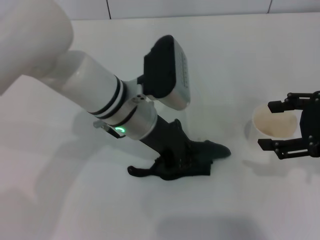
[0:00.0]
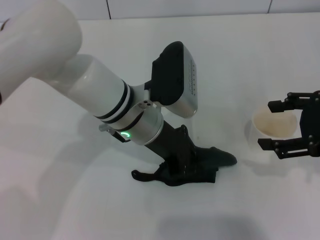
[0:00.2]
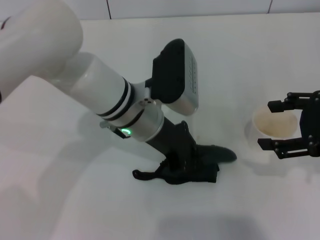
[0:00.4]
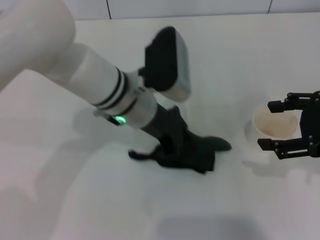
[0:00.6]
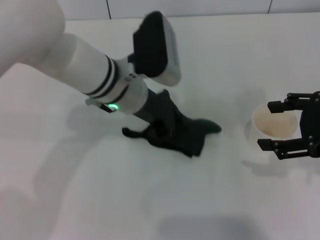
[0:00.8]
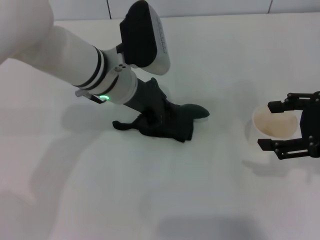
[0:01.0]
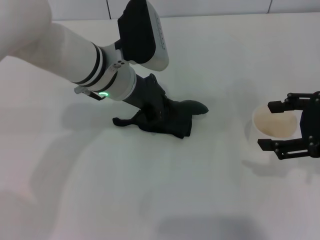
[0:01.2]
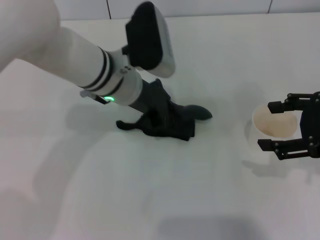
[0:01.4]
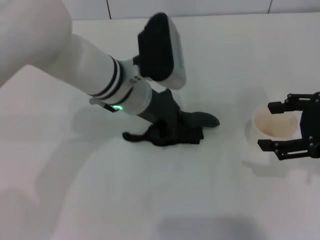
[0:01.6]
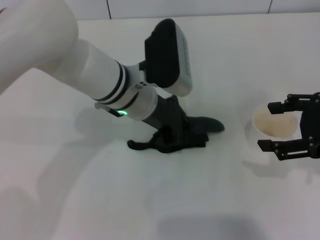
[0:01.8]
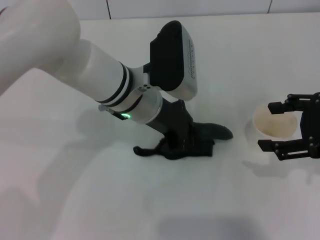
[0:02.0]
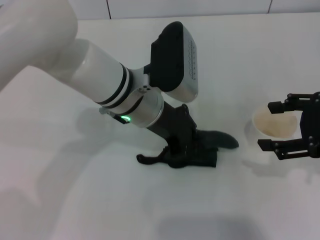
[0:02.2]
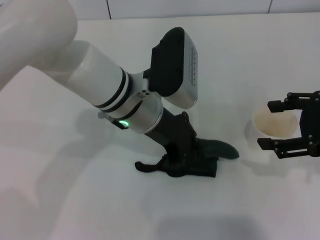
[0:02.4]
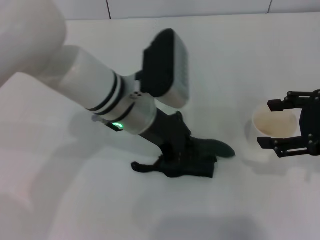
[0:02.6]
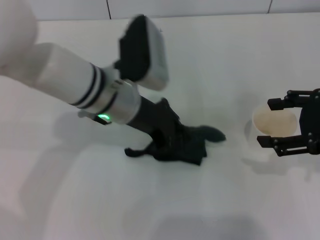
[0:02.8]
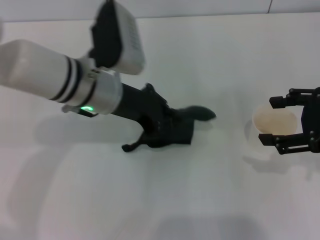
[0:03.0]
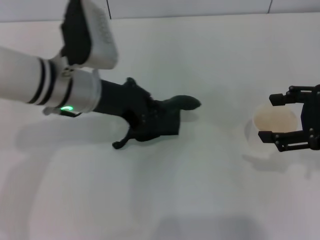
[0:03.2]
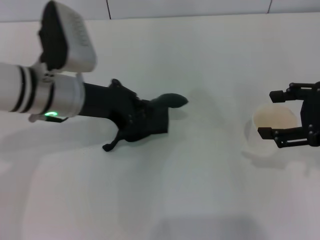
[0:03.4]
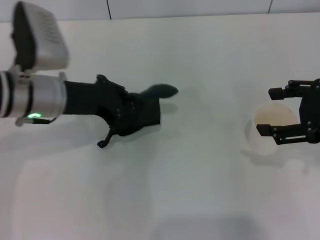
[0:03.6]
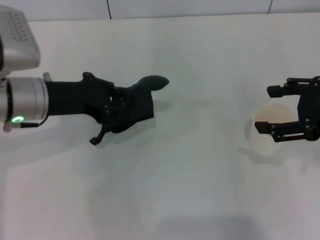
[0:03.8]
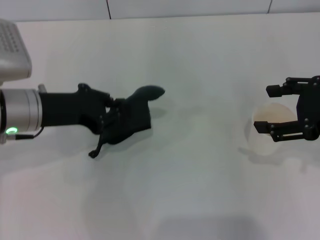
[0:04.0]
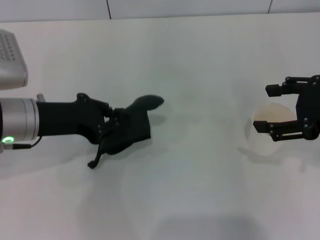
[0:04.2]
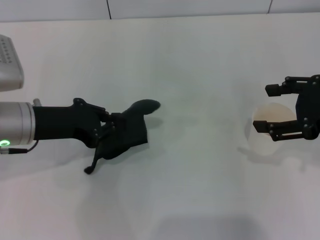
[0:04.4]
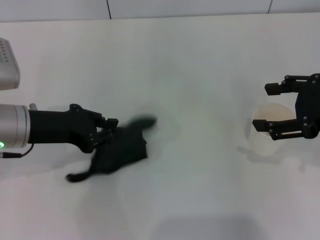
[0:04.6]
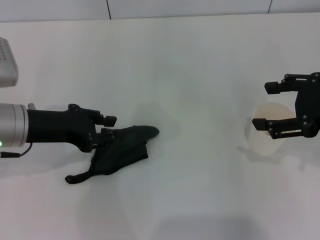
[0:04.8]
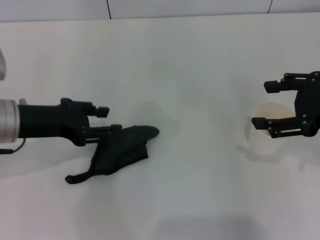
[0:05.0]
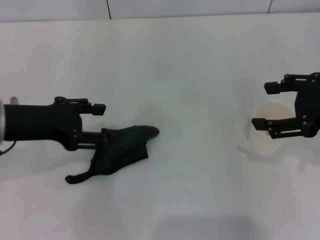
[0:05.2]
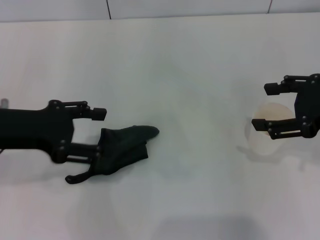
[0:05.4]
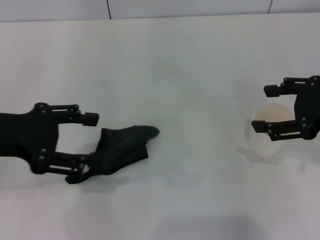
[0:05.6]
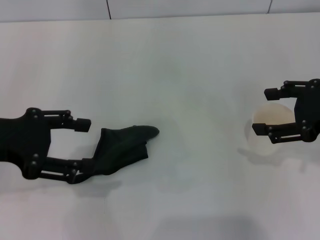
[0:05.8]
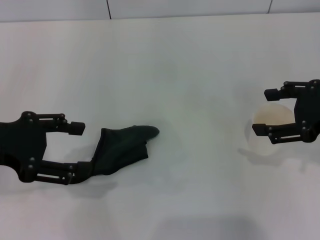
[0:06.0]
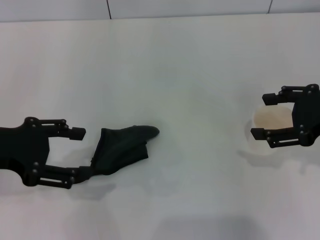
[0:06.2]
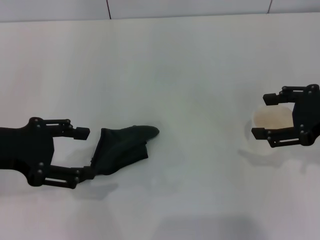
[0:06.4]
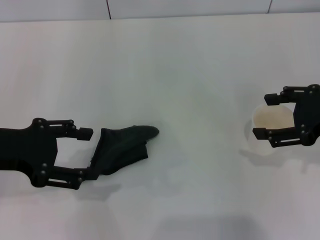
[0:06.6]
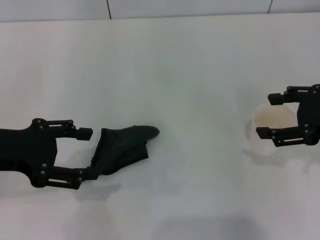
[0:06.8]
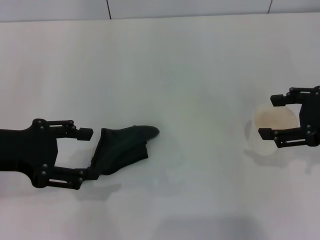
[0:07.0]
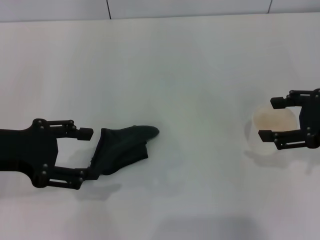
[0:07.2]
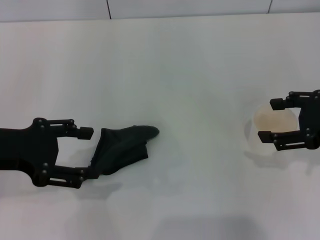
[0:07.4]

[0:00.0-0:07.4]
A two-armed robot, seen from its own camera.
Step, 0:00.0 to 0:03.0: Wipe the stains off the table with the left gripper.
Step, 0:03.2 to 0:05.0: Place the rag on the table with the left gripper.
0:00.0 to 0:01.4: There are only small adjustments of the grippers.
0:03.0 to 0:04.4: The left gripper goes some 10 cm to the left.
0:04.4 to 0:06.0: The left gripper travels upward and to the left by about 10 cm, and opens.
0:06.0 to 0:07.4: The grippers stay close to where they were, moving slightly.
